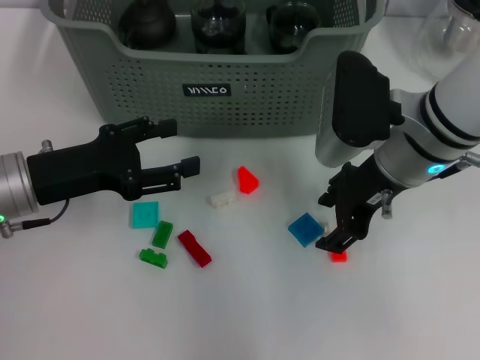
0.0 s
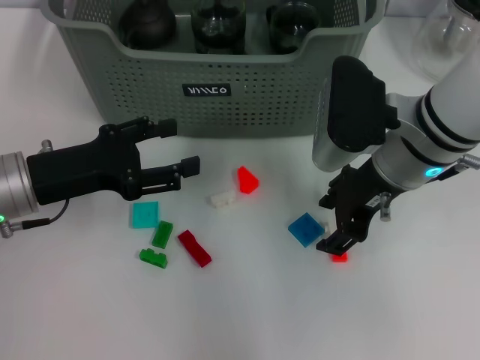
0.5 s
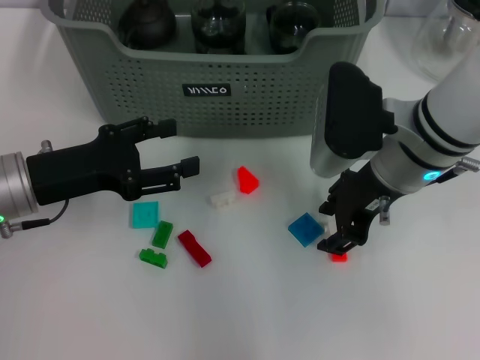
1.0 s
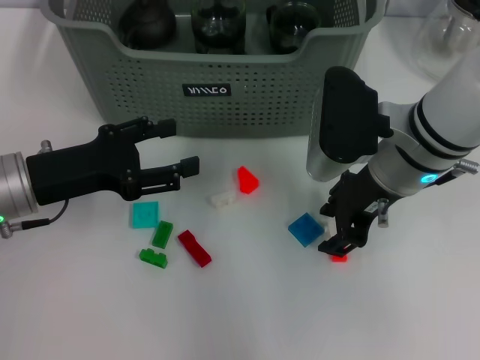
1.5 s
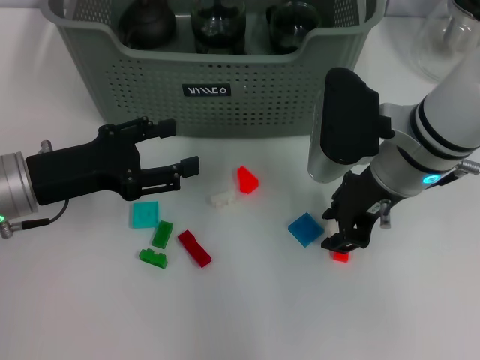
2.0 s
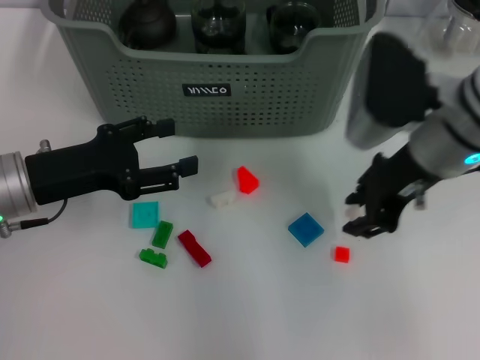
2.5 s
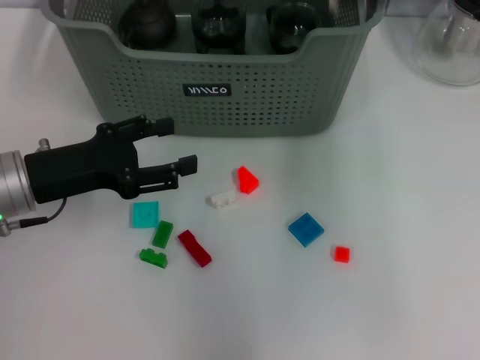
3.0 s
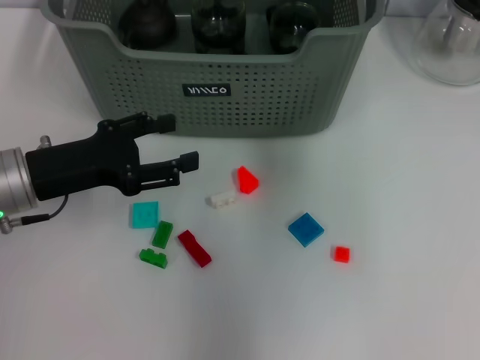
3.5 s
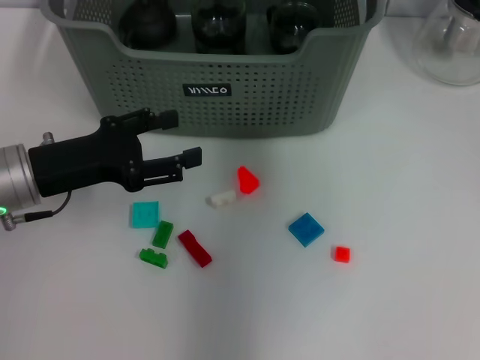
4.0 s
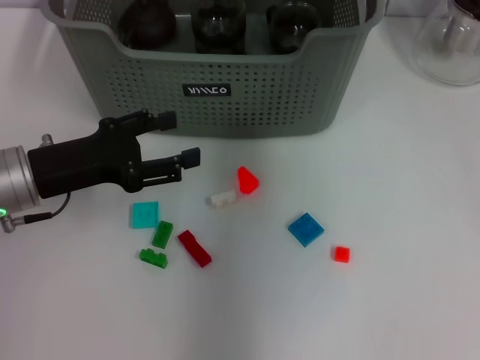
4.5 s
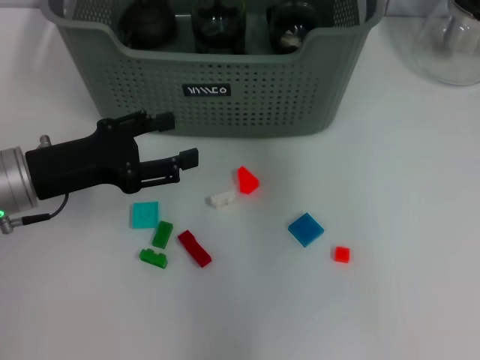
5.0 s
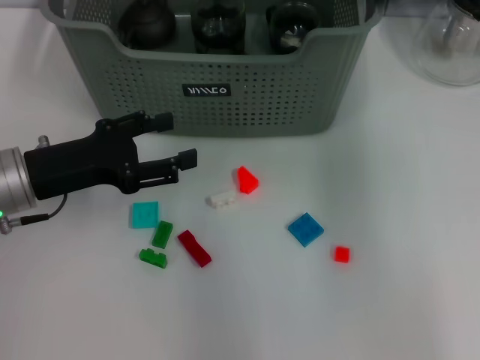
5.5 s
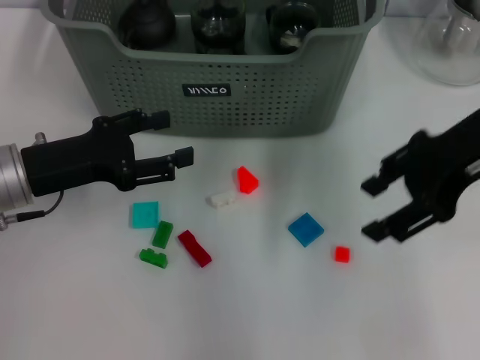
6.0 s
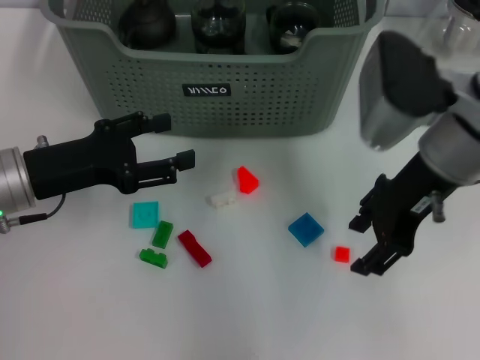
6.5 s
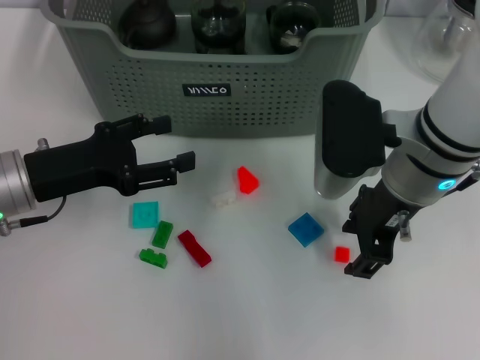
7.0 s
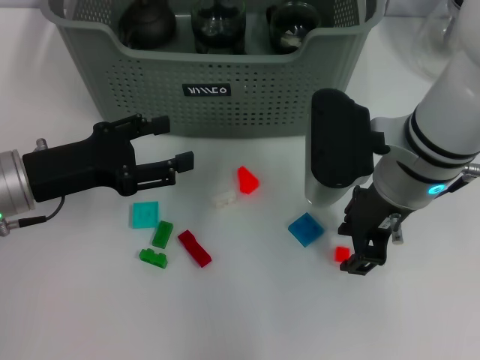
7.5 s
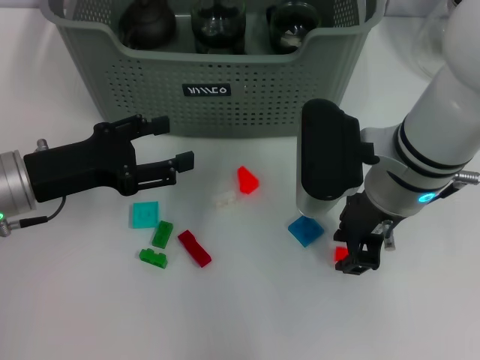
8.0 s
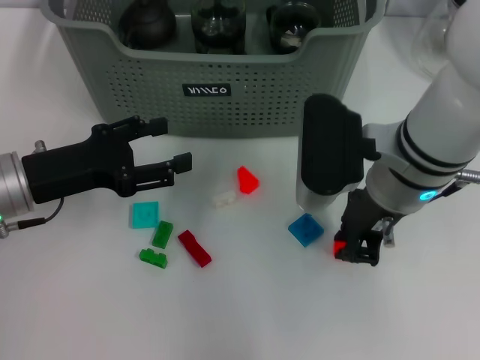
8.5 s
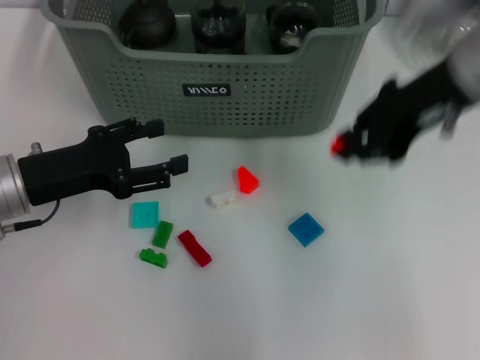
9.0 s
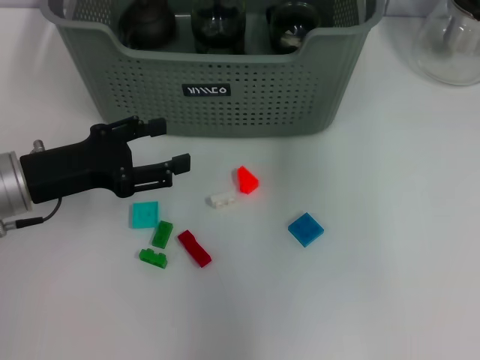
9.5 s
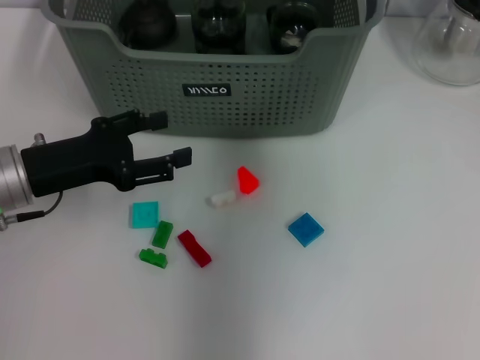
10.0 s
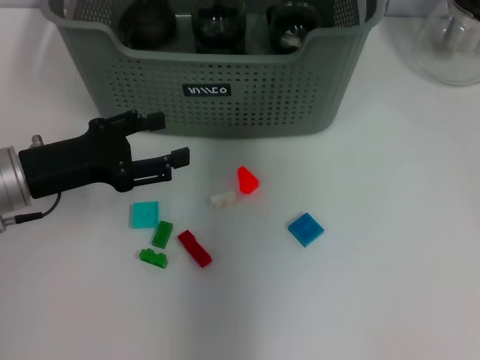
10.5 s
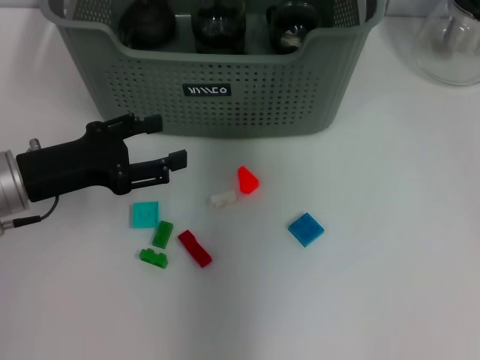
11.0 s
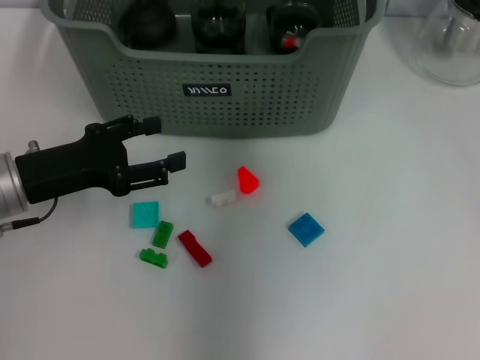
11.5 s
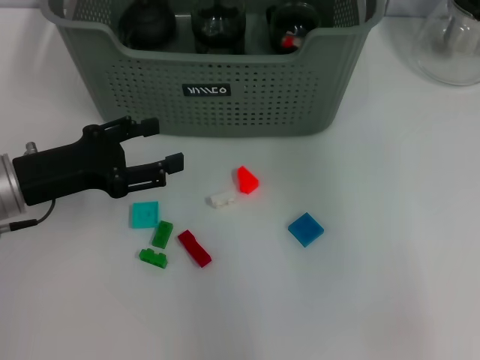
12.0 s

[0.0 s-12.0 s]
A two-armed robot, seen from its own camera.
Task of the whole recording: pick up the teacup on the table and place it into the storage bin, pick up the block on the table and place it into the storage bin.
Step, 0.0 to 2.0 s: Grasp the white block with right gripper.
Step, 2.5 to 4.5 s: Place the white block in the storage box with right gripper.
Step, 5.0 to 8.0 s: Grasp the orange block with right gripper.
Step, 8.5 to 11.0 s: Place the orange block in the storage box with right gripper.
0.0 to 2.0 s: Neither gripper changes place.
2.0 to 4.0 s: The right gripper moves forward and upward, about 20 cm.
4.0 to 6.0 s: The right gripper is displaced backward and to the right by about 20 cm.
6.0 to 8.0 s: The right gripper heads to the left and downward, covering roughly 15 cm.
8.0 to 10.0 s: The right gripper shifts some 25 cm upward and forward.
10.0 to 12.0 s: The right gripper heads backward, covering some 10 cm, and opens up.

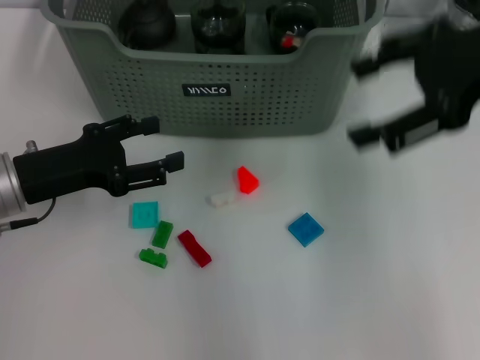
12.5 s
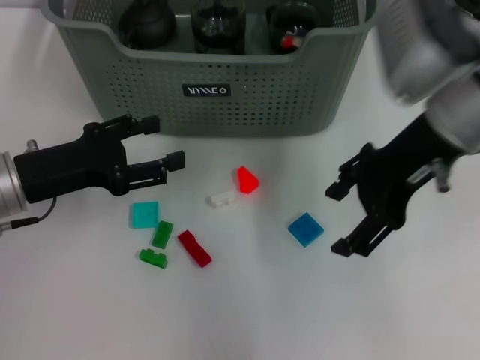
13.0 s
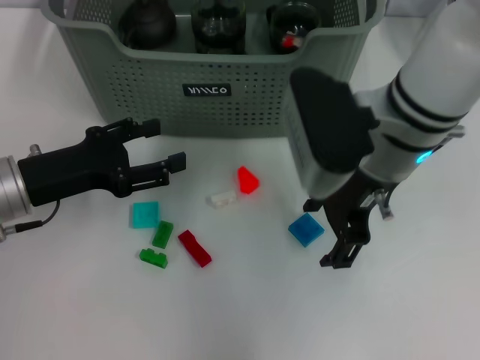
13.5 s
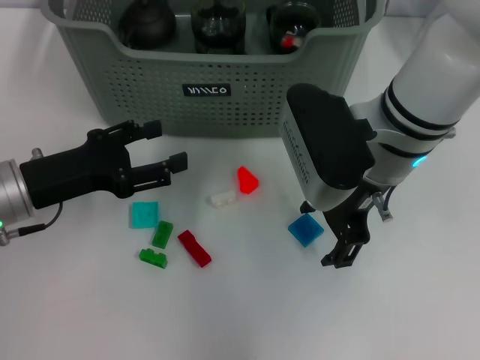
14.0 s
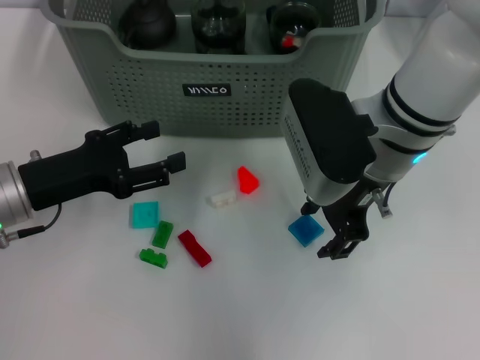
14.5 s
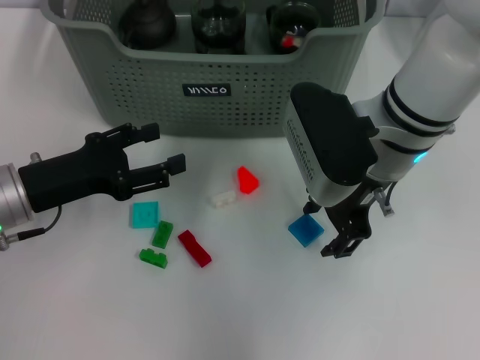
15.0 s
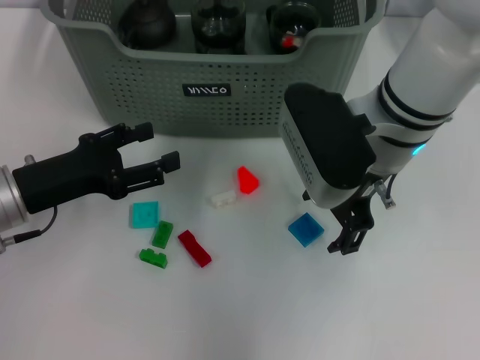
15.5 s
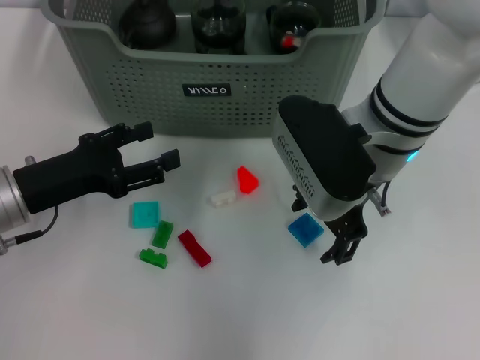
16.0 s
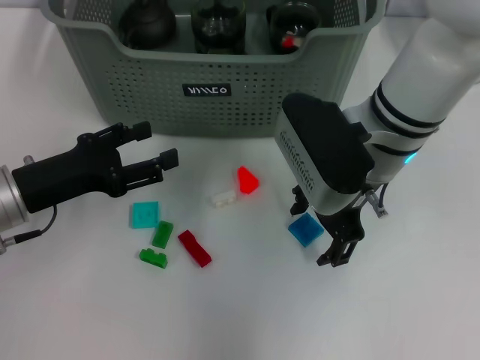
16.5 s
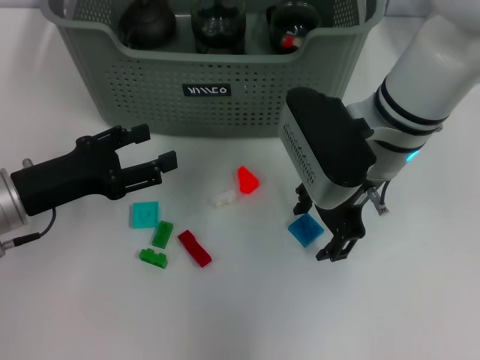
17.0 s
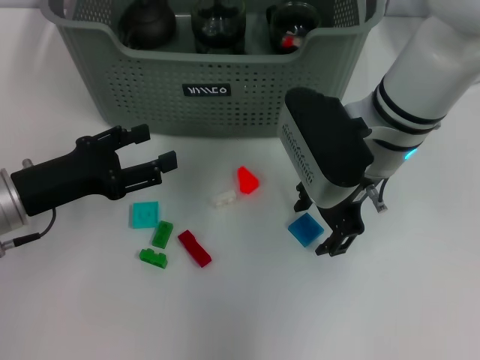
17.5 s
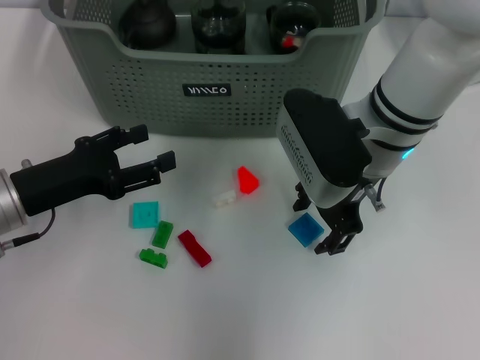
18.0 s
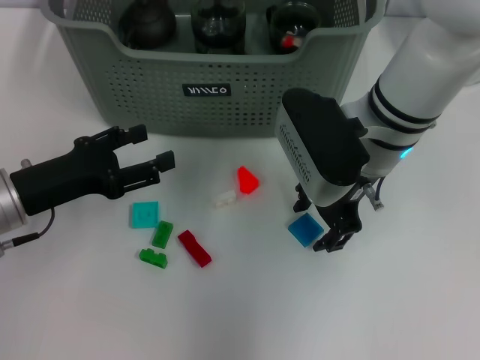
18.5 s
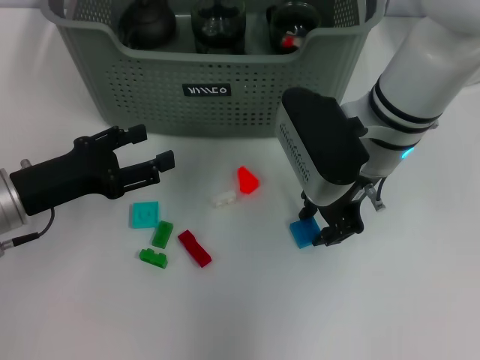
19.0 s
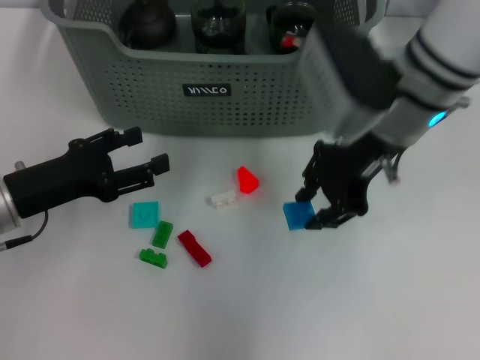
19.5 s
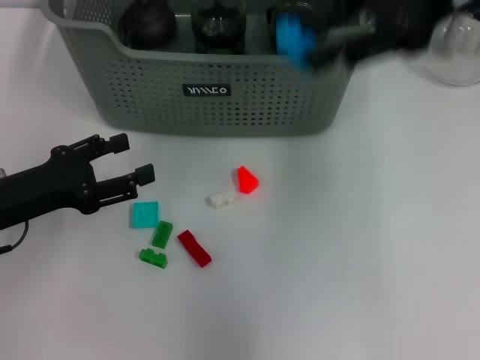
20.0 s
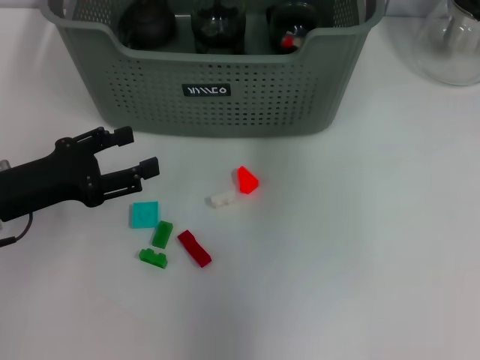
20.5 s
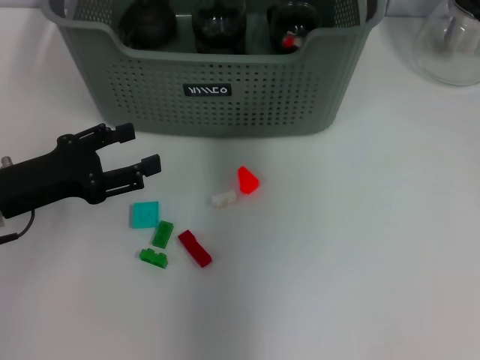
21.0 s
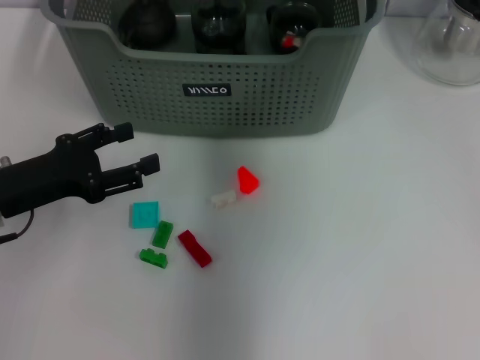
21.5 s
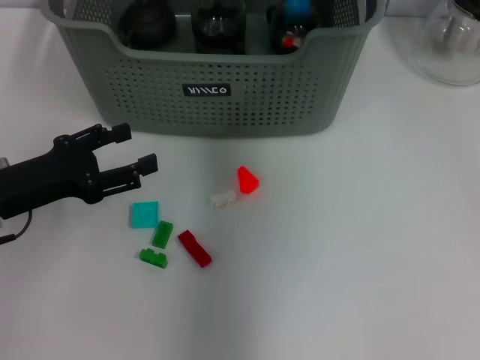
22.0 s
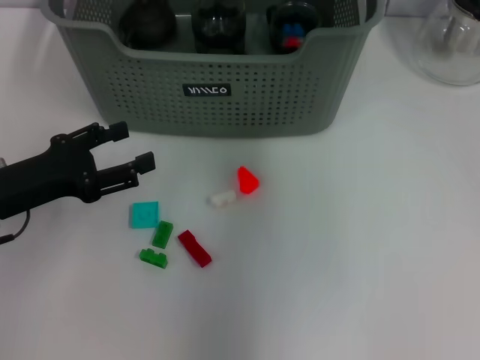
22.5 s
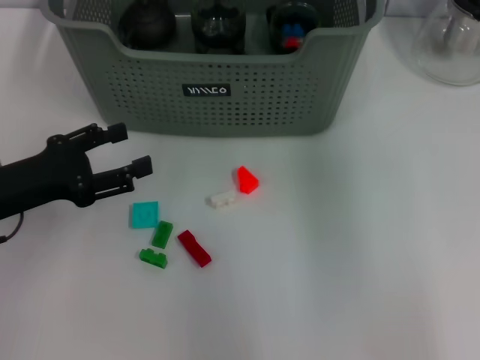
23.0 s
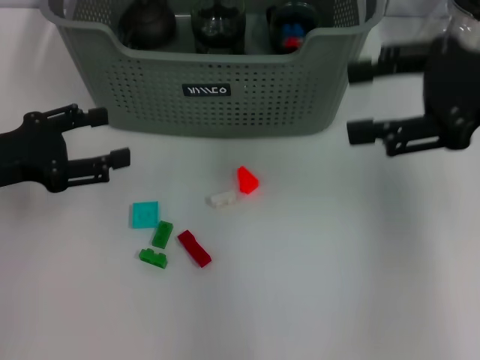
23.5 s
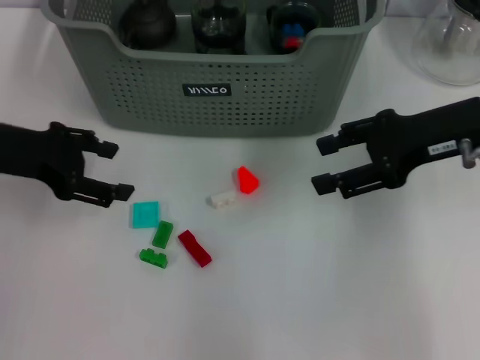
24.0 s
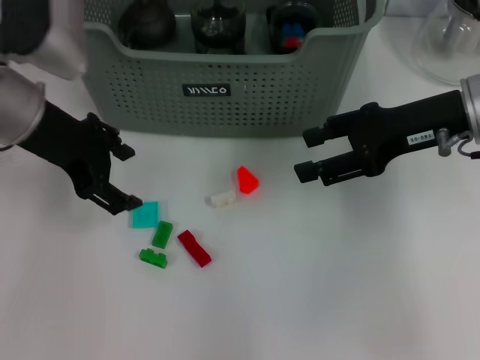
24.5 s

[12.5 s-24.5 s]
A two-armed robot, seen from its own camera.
Task of the whole recording: pick up the teacup on the table and place it into the storage bin, pick up the block on the table and place it into the storage bin.
Step, 12.5 to 18.5 s: Grasp the dark blue block with right gripper.
Step, 19.0 to 22.0 s: Place the dark blue block in the storage box with right gripper.
12.5 to 14.5 s: The right gripper heads downward and to the left, covering approximately 20 cm.
14.5 to 16.5 s: The grippers stay close to where they were, moving slightly.
16.5 to 18.5 s: Both grippers stay about where they are.
18.5 to 20.5 s: The right gripper moves upward and forward, approximately 25 cm, and closes up.
20.5 to 22.5 s: The right gripper moves downward and to the left, about 10 cm, and opens its fingers.
22.5 to 24.5 s: The right gripper heads backward, downward and to the right, covering approximately 20 cm. The left gripper travels upward, forward and to the right by approximately 15 cm.

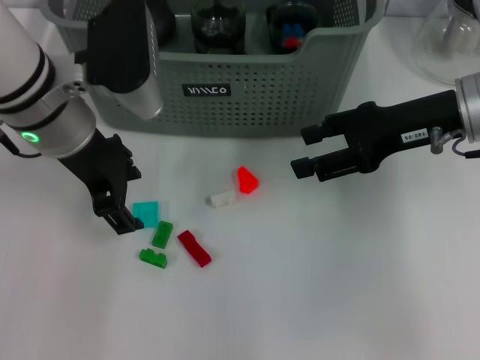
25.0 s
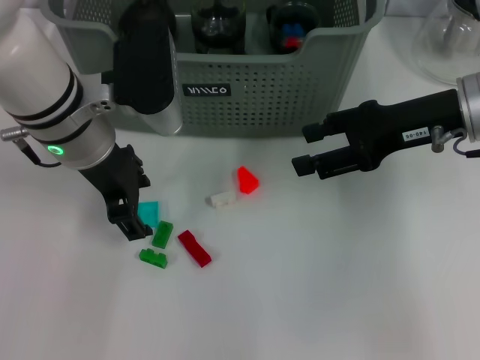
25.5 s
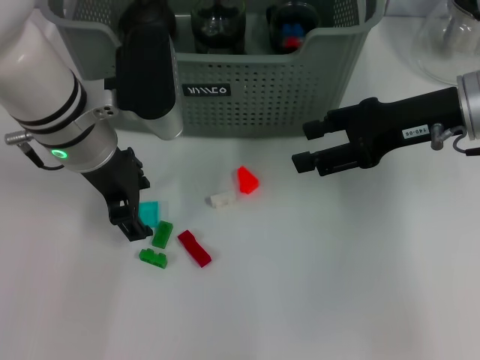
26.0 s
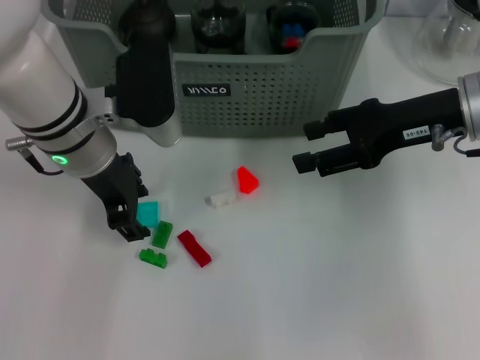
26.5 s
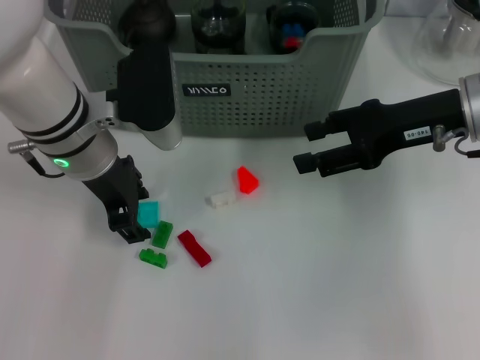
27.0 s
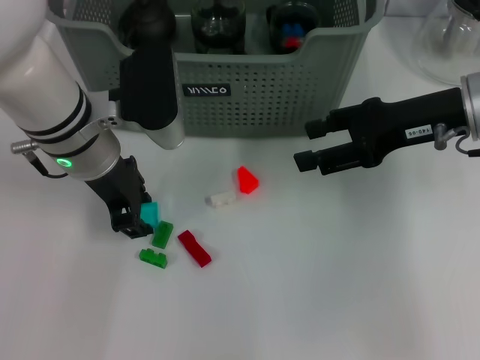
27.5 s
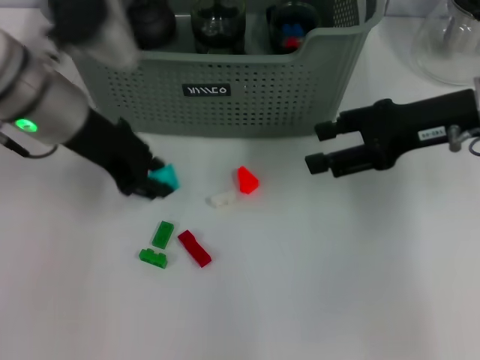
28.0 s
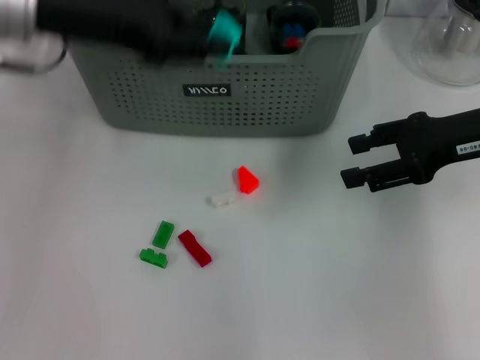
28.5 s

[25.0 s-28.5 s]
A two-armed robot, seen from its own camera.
Task of the whole recording: pick up the teacup on the table and place it into the storage bin, pick up the block on the table and place it into the storage bin.
Step, 25.0 to 27.5 s: Grasp the light blue block with left gripper.
25.0 to 27.0 s: The grippers make only small movements.
27.0 to 28.5 s: The left gripper travels upward by approximately 10 cm.
